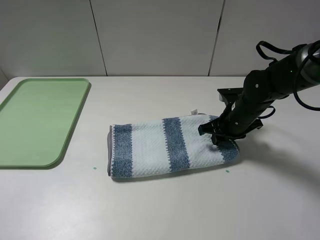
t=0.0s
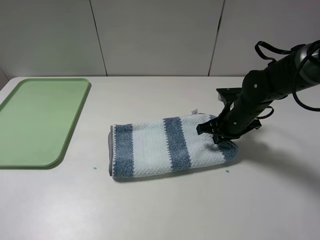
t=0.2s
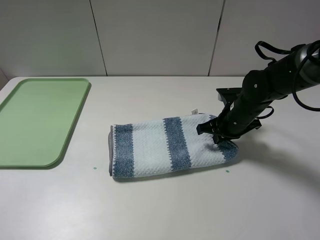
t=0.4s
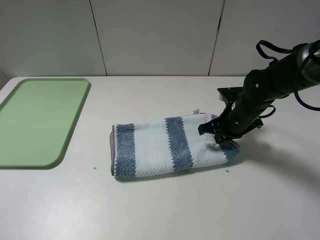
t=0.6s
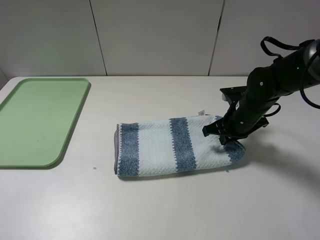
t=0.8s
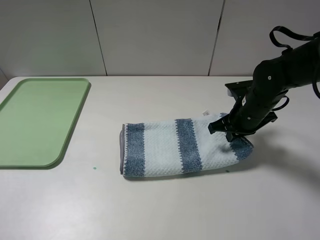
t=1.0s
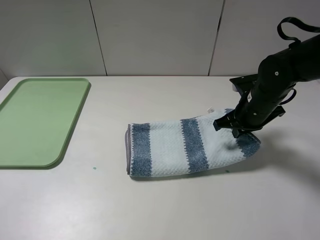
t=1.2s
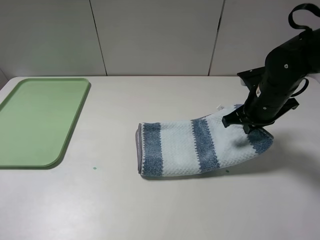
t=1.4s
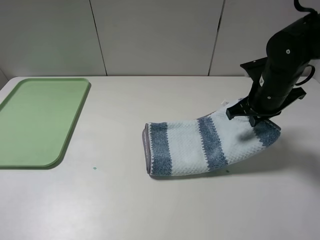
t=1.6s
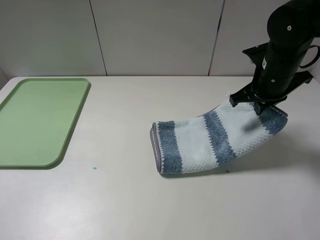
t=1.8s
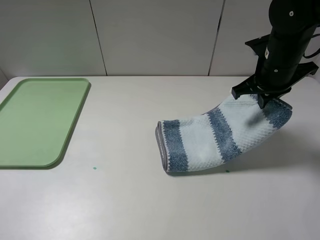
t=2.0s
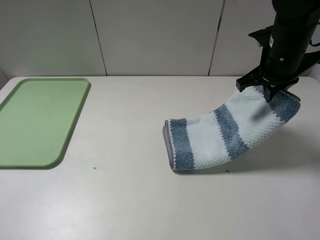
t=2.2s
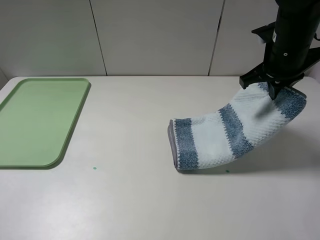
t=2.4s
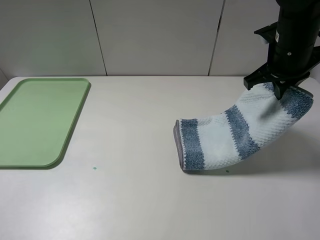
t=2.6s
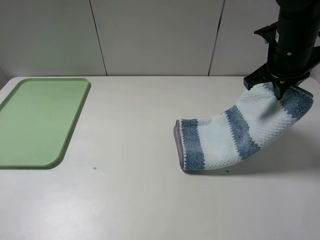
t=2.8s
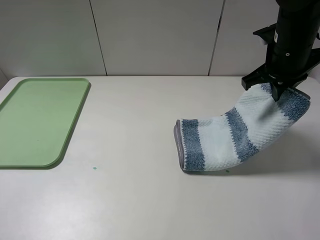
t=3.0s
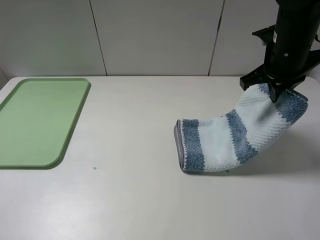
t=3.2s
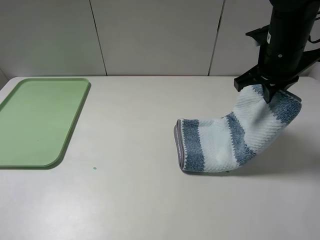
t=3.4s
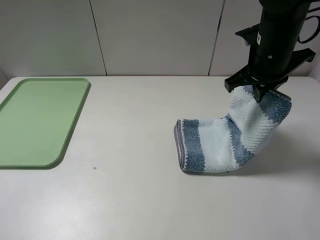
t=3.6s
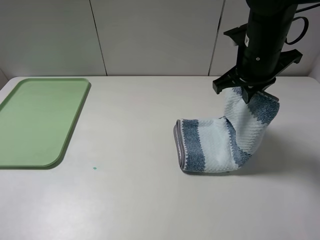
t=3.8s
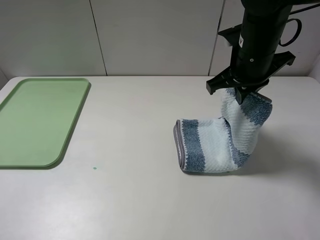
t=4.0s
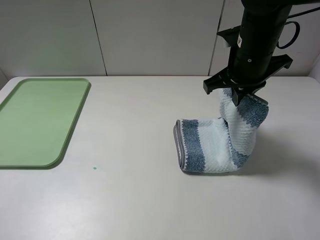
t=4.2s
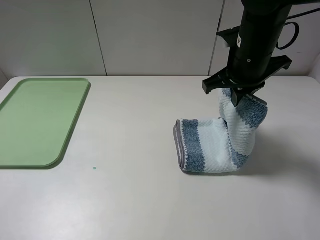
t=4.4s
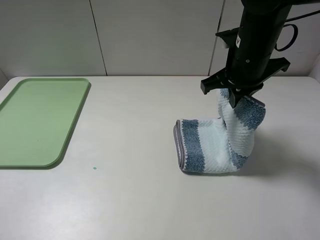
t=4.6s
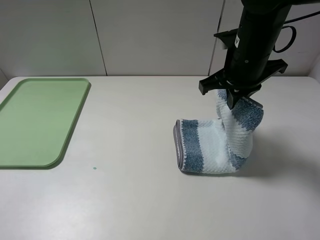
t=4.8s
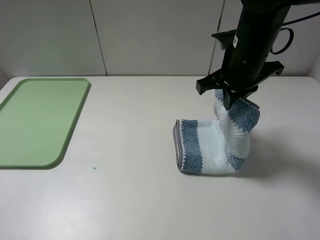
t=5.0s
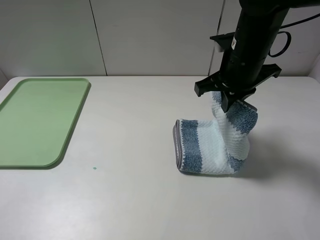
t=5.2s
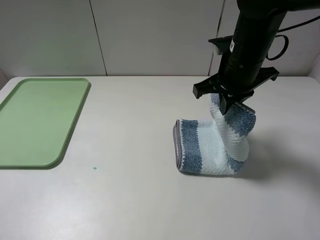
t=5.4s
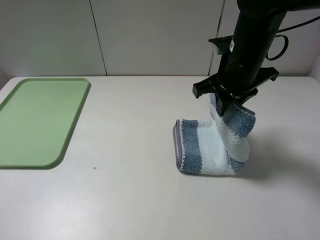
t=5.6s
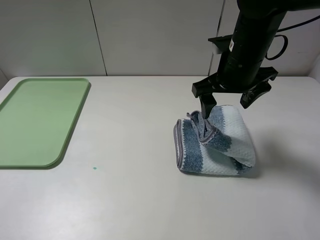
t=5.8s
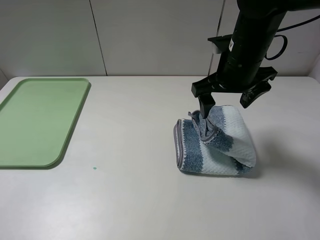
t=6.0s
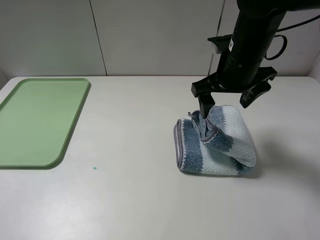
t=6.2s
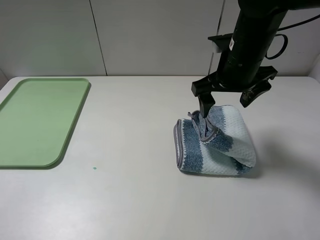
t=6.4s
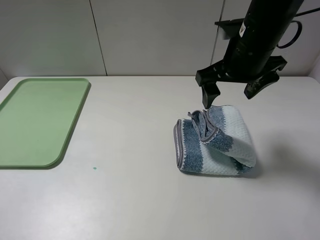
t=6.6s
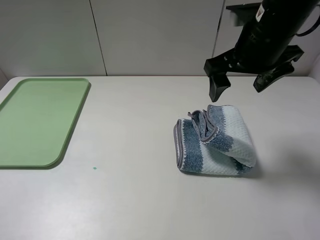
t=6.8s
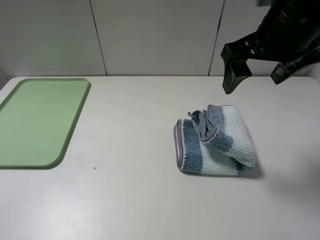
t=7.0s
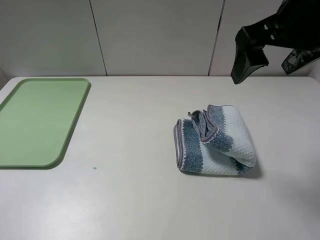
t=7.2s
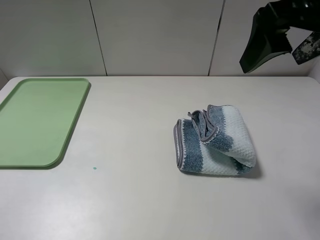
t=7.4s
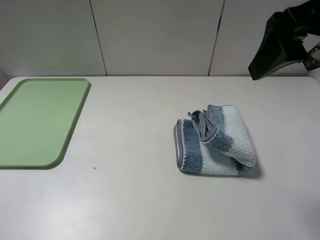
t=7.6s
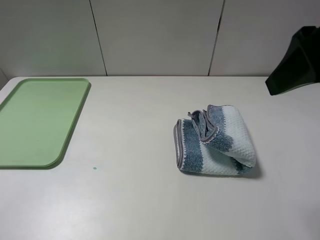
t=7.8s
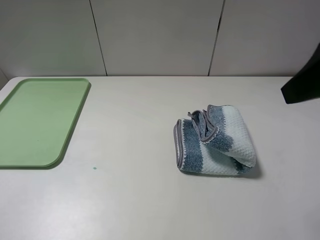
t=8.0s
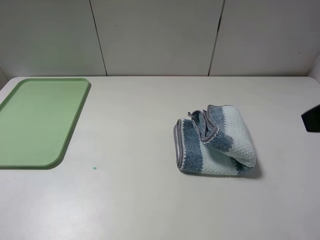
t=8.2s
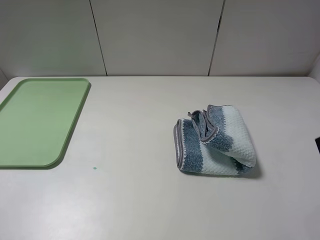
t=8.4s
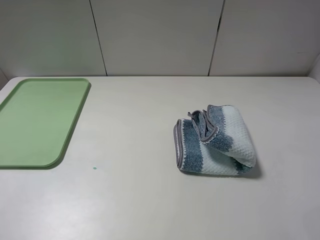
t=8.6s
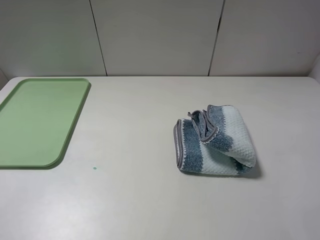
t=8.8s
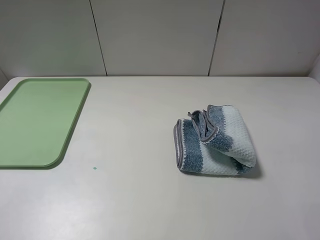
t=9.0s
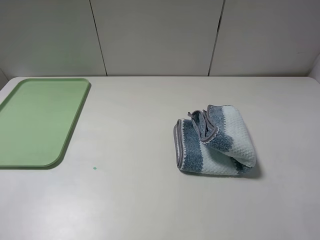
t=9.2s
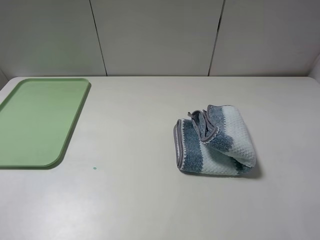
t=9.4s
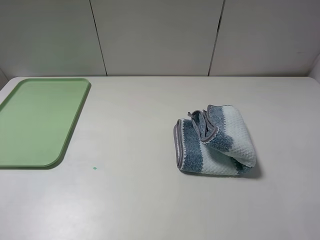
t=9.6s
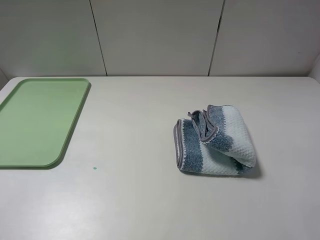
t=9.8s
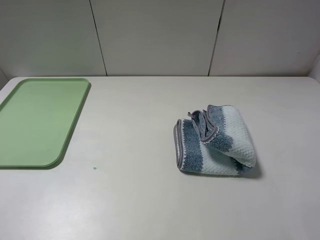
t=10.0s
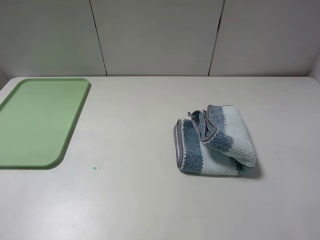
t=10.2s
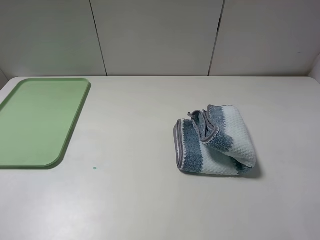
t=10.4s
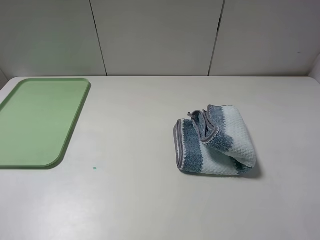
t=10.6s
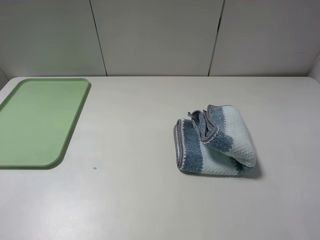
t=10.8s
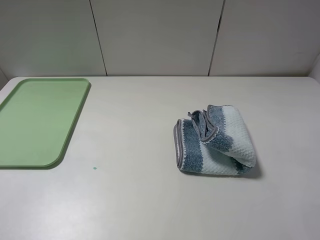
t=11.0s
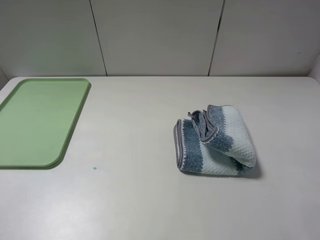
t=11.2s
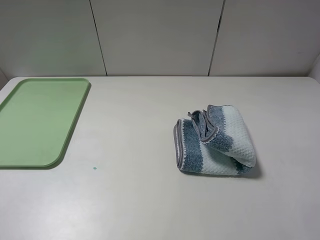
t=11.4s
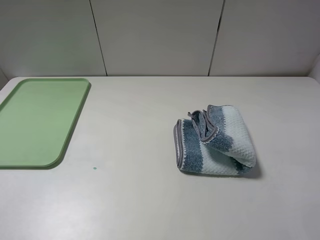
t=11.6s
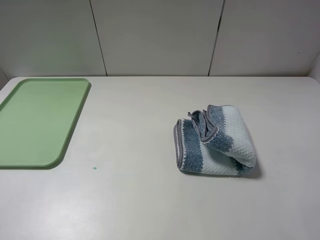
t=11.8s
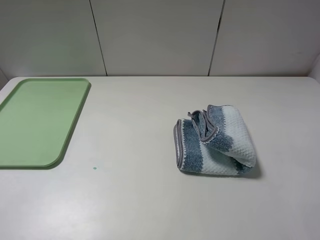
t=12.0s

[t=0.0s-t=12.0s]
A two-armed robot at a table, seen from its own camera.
Step, t=0.6s to t=7.6s: Fold the blue white towel from right to left with right gripper.
t=0.0s to t=1.6s: The right gripper goes about 10 cm upward.
t=1.6s to t=3.0s: The right gripper goes some 5 cm upward.
t=3.0s to t=4.4s: The right gripper goes roughly 5 cm to the left.
t=4.4s to t=6.0s: The right gripper opens its fingers.
t=6.0s to t=7.6s: The right gripper heads upward, backward and to the right, covering approximately 20 cm.
t=7.6s to t=9.0s: The right gripper shifts roughly 20 cm backward, to the right and downward.

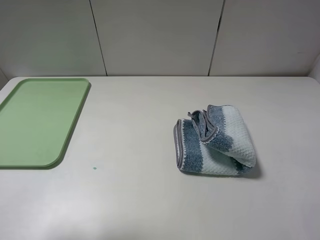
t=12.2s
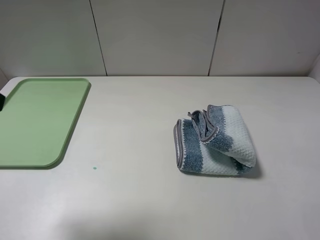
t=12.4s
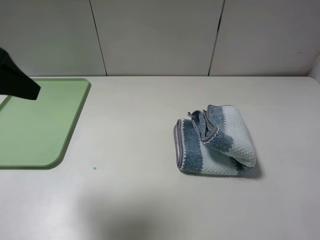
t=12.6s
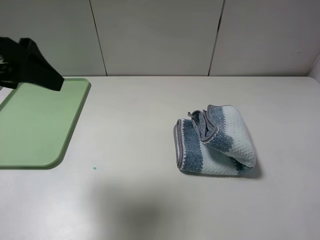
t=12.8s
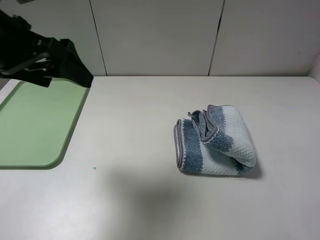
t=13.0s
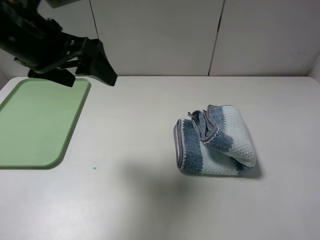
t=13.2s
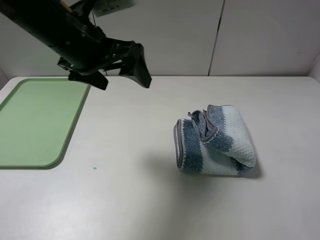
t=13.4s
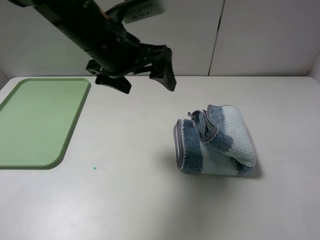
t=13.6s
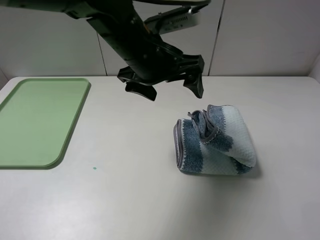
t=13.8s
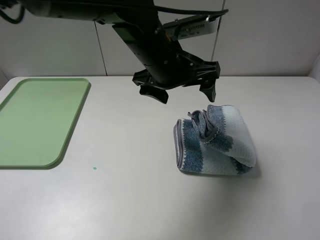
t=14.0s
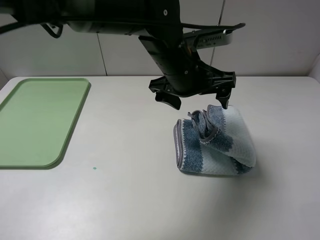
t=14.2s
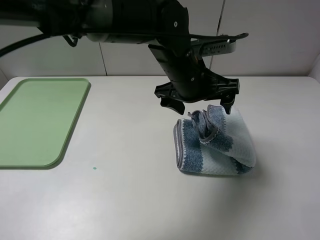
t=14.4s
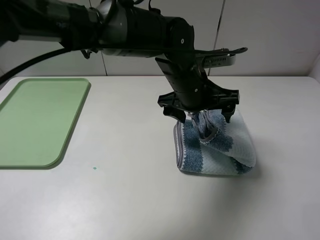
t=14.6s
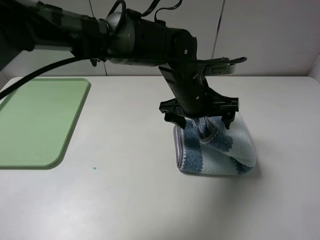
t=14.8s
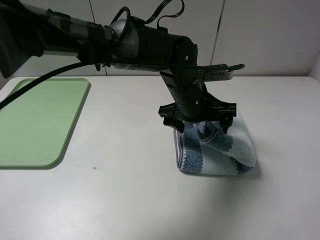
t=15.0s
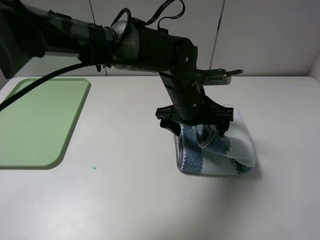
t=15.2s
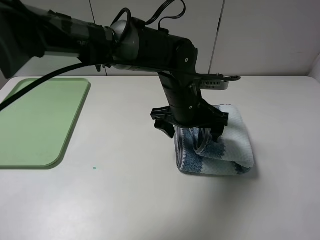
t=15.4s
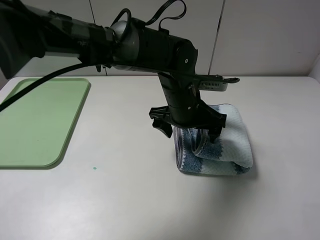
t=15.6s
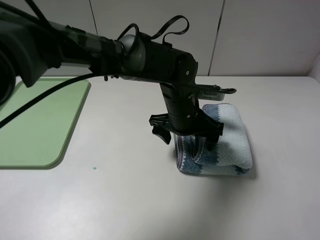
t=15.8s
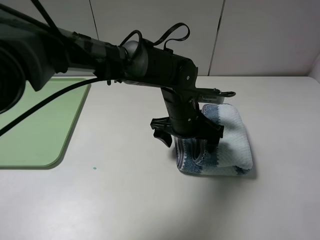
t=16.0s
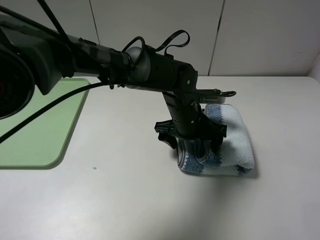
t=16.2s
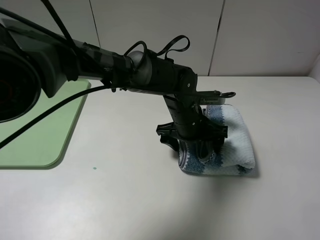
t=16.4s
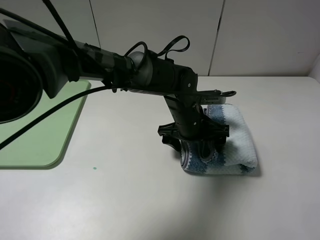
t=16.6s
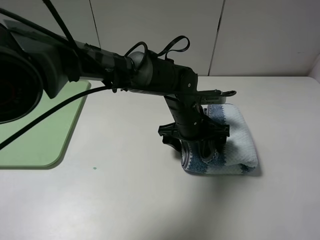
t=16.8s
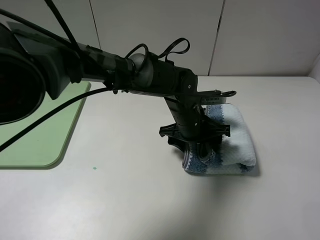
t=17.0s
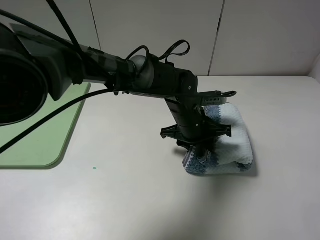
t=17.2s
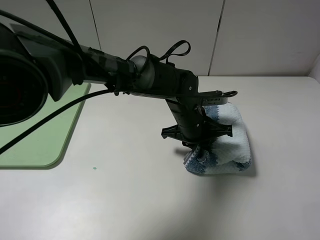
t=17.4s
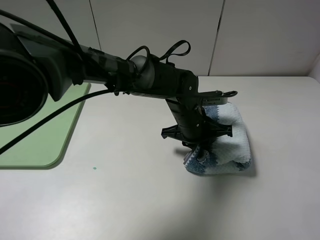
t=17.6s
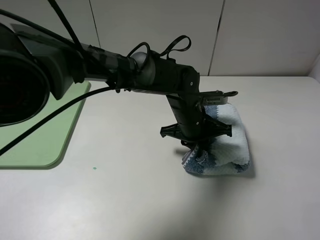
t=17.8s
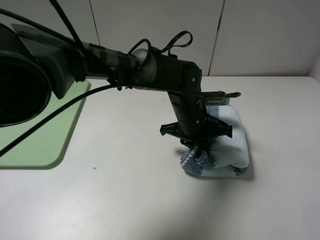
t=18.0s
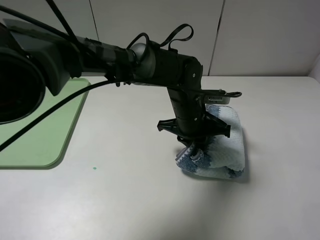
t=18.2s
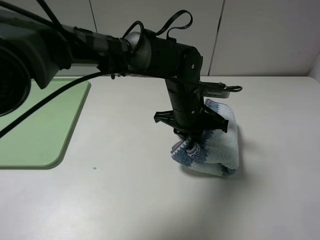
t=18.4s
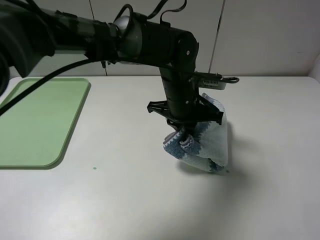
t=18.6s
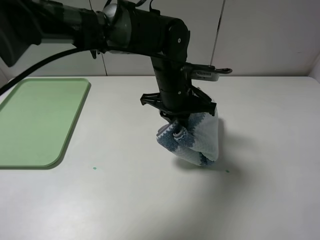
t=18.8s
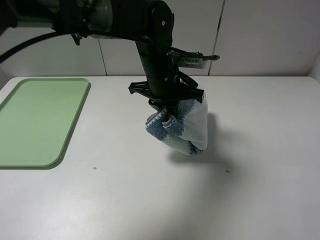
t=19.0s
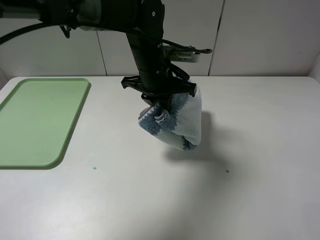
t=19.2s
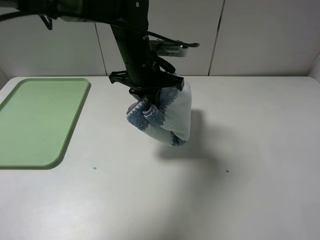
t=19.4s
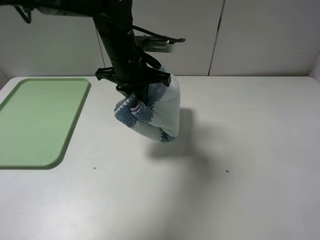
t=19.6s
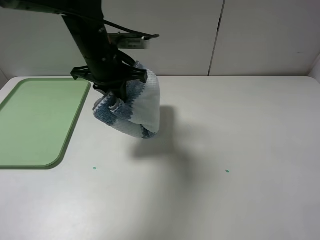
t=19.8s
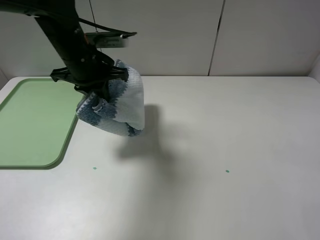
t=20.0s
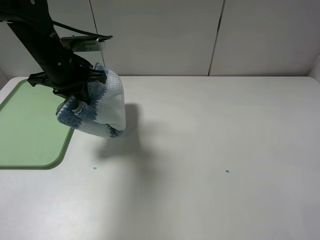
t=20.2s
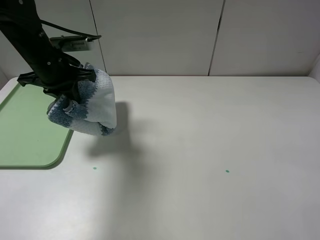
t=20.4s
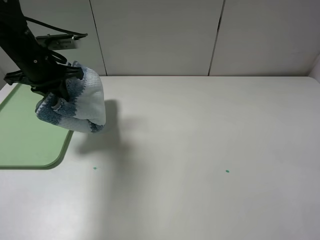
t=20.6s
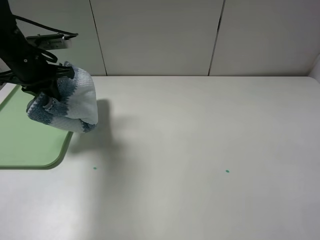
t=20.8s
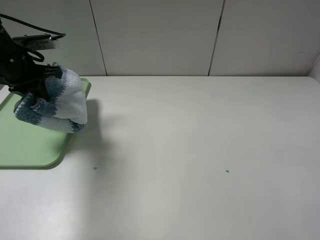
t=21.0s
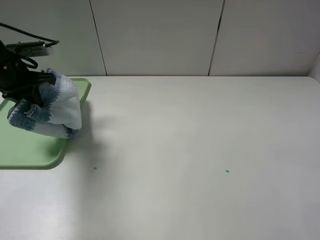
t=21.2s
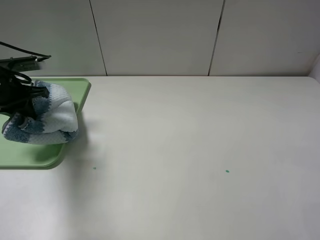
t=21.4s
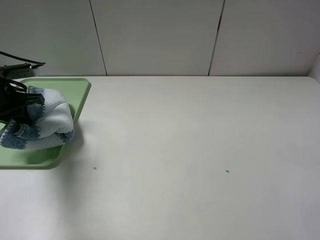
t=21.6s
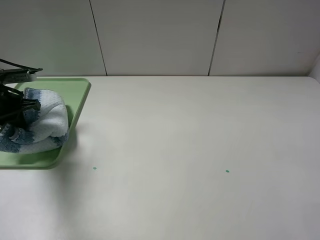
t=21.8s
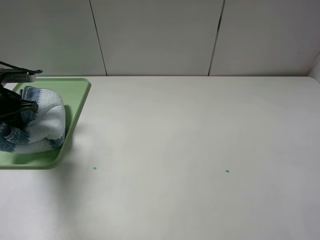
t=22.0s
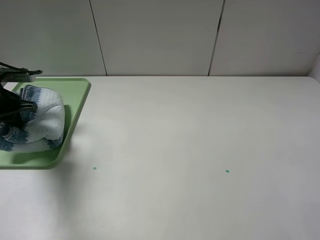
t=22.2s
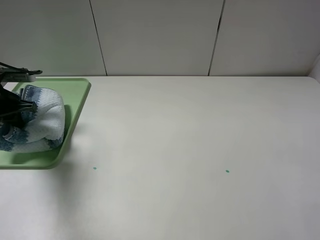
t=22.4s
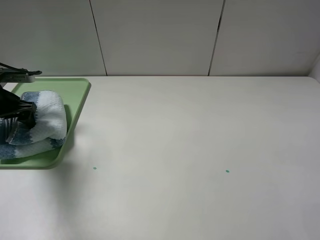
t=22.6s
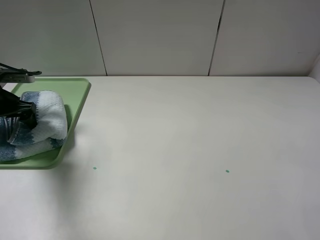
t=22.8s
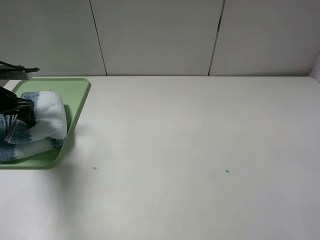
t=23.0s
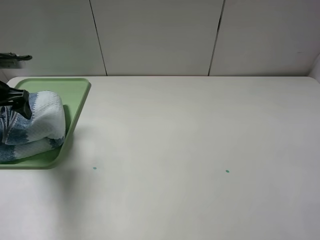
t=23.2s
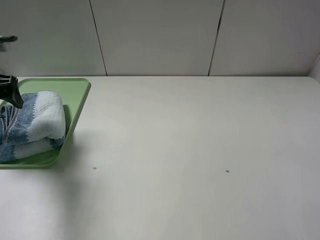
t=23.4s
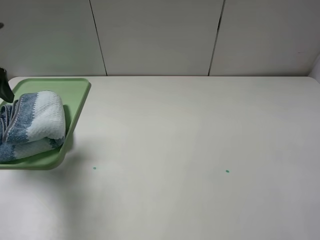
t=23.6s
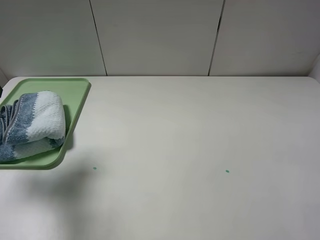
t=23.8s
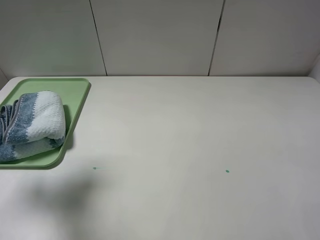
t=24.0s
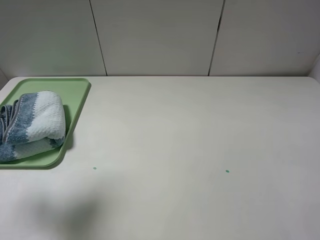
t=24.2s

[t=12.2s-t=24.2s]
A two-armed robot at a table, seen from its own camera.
Step, t=12.2s to t=17.6s: Grasp the blue white towel with the left gripper.
t=12.2s to t=13.8s: The left gripper moves to the right and forward, approximately 30 cm.
t=13.8s to t=15.2s: The left gripper moves downward and to the right, some 15 cm.
t=15.2s to t=16.6s: The left gripper heads downward, covering some 5 cm.
t=16.6s to t=18.2s: The left gripper closes.
t=18.2s to t=19.8s: The left gripper moves to the left and upward, some 20 cm.
t=19.8s to t=21.2s: The left gripper travels to the left by some 20 cm.
t=21.2s to t=22.6s: The left gripper changes place by roughly 5 cm, and opens its fingers.
t=22.6s to t=24.2s: The left gripper heads upward and backward, covering approximately 25 cm.
